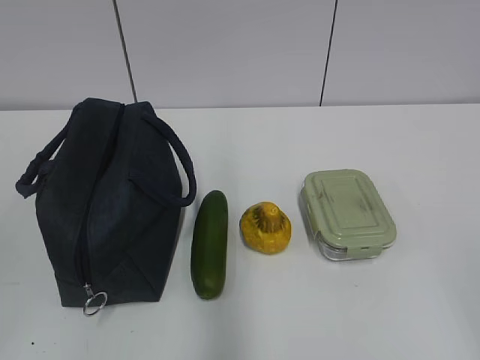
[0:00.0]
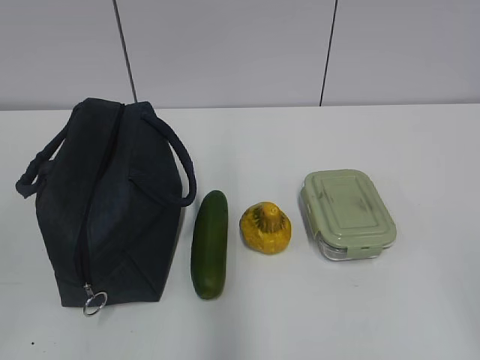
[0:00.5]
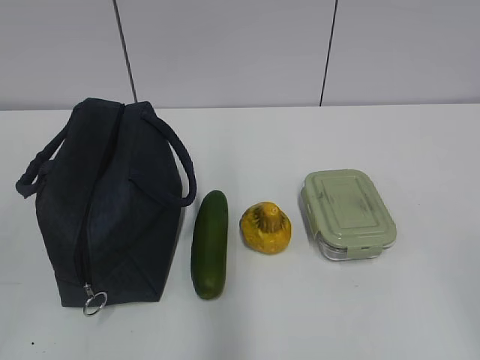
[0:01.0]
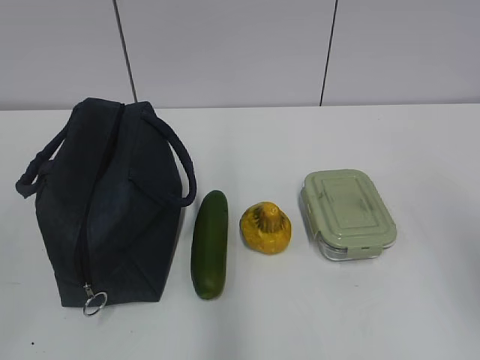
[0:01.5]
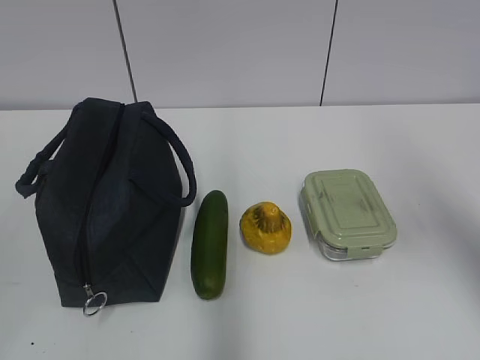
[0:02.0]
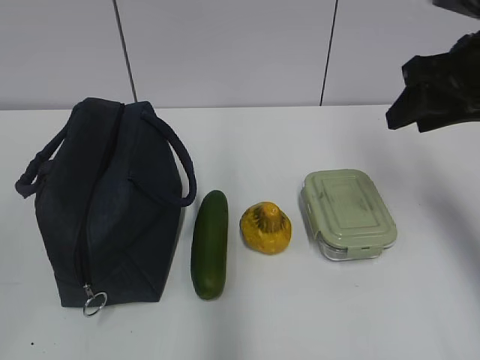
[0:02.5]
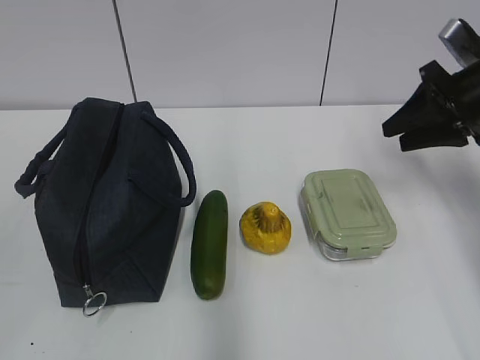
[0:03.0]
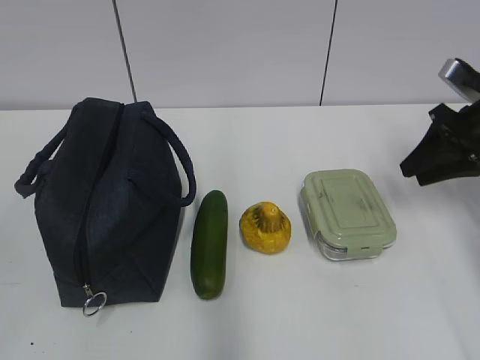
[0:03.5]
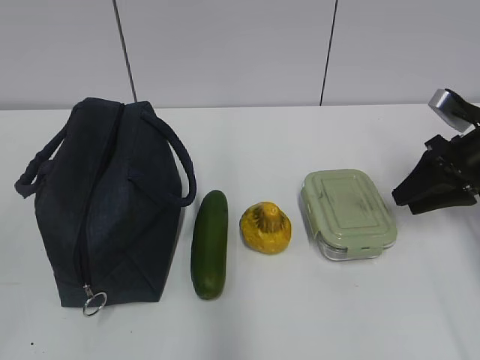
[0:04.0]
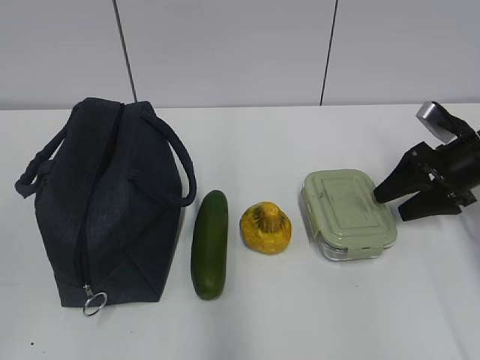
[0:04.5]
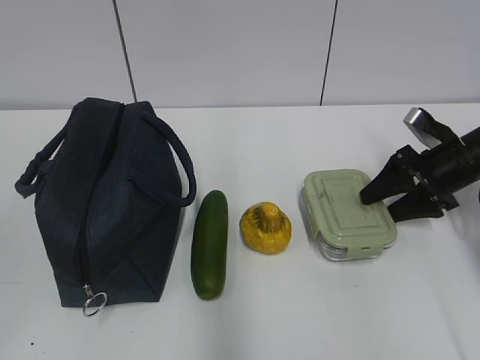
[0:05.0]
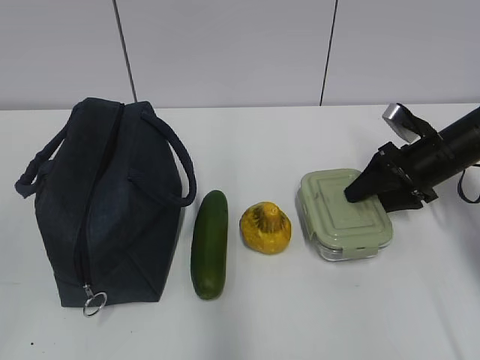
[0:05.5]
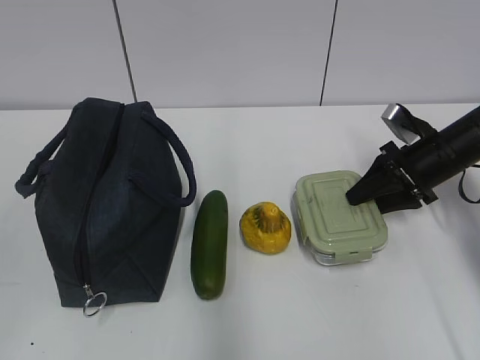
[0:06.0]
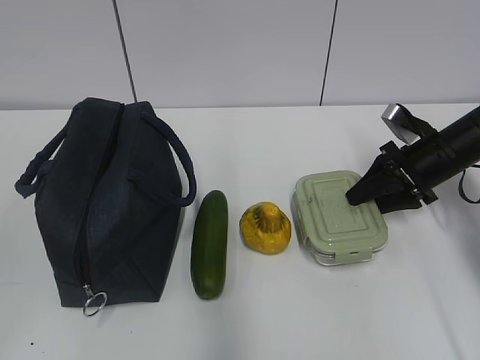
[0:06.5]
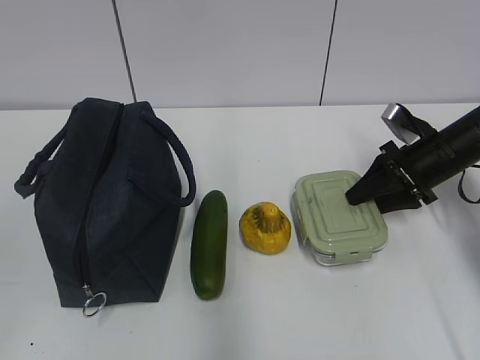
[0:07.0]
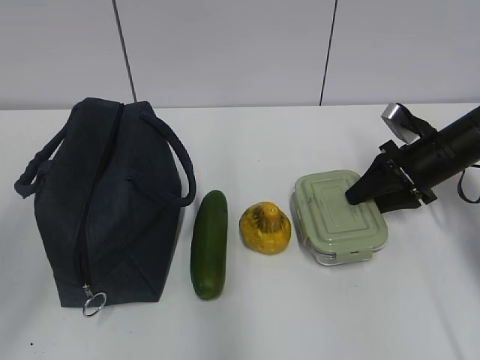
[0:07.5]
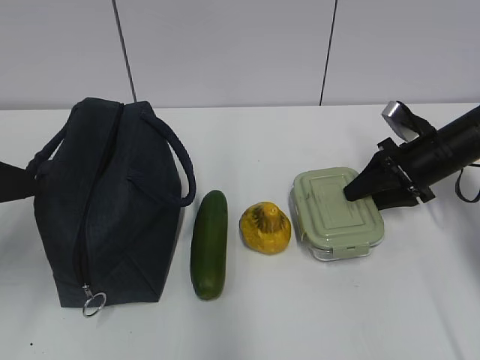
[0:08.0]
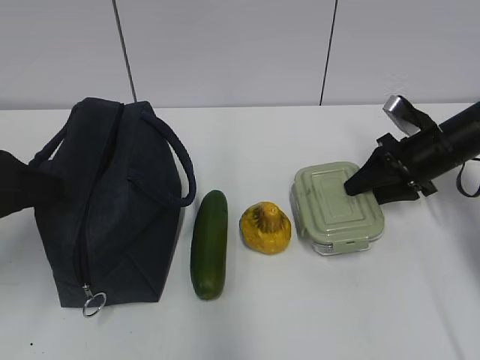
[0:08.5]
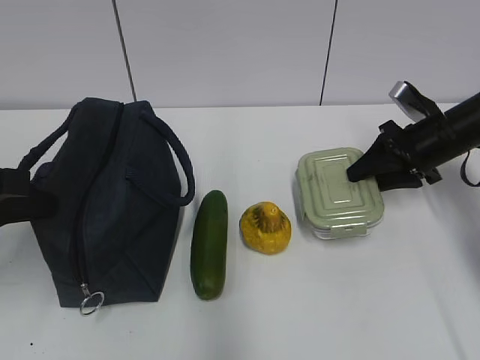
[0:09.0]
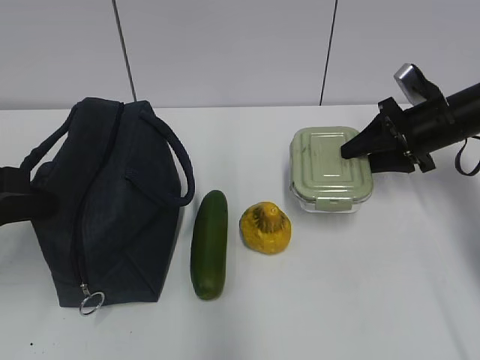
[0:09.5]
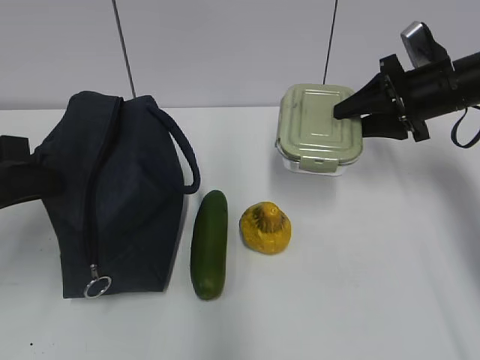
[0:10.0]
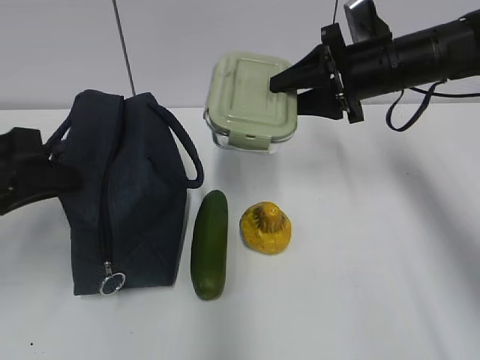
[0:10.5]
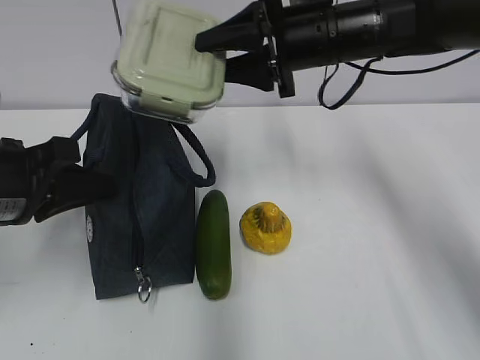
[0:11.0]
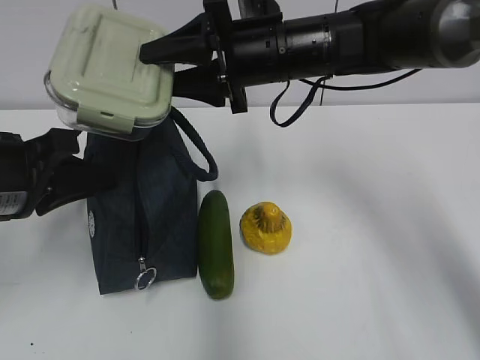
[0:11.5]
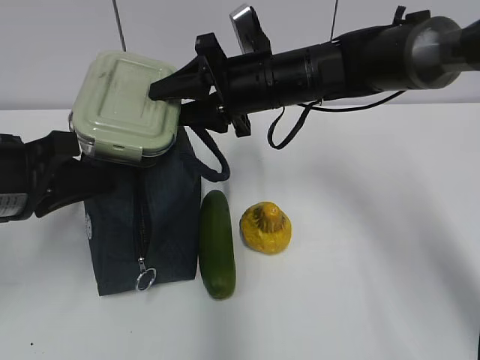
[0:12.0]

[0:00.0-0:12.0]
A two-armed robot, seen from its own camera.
Step, 0:00.0 to 0:06.0: Grab the lunch box with your right hand.
Step, 0:06.5 to 0:11.5: Grab the lunch bag with your left hand.
0:02.0 to 0:04.0: The right gripper moves downward and forward, roughly 25 cm.
0:04.0 to 0:06.0: The right gripper shifts by some 5 cm, and opens and closes again.
0:06.0 to 0:08.0: The left gripper moves forward, approximately 20 cm, and opens its fingers.
0:08.0 to 0:10.0: The right gripper goes approximately 10 cm upward; the left gripper closes.
0:10.0 to 0:12.0: The right gripper travels to the left by about 20 cm.

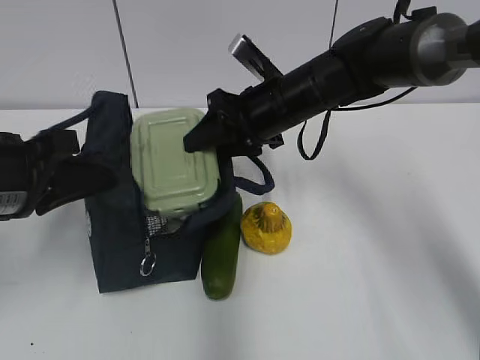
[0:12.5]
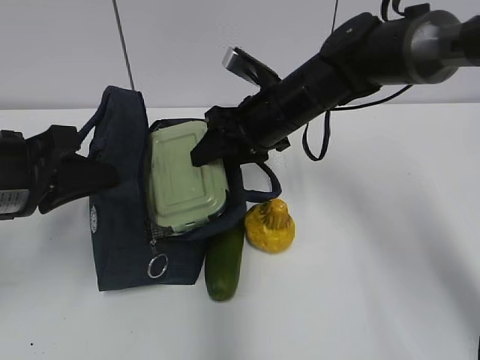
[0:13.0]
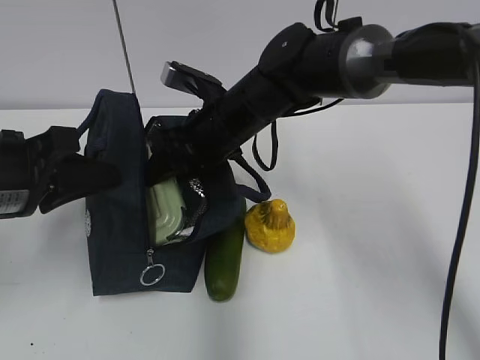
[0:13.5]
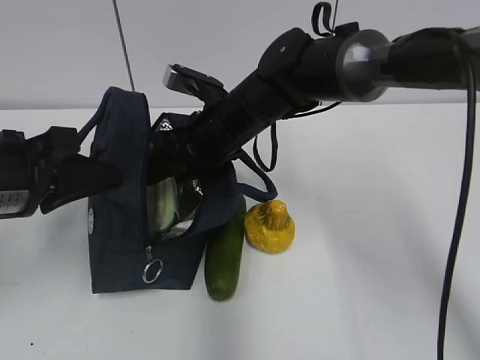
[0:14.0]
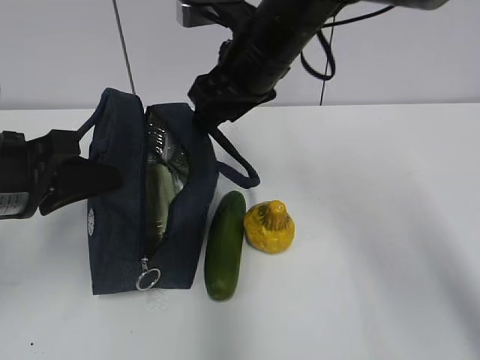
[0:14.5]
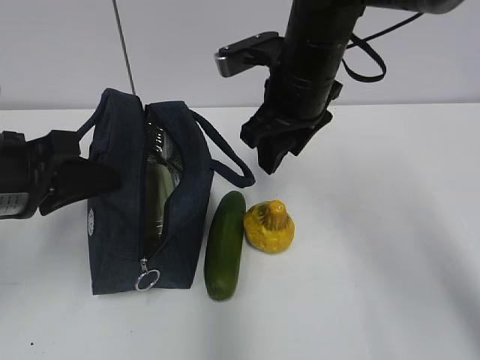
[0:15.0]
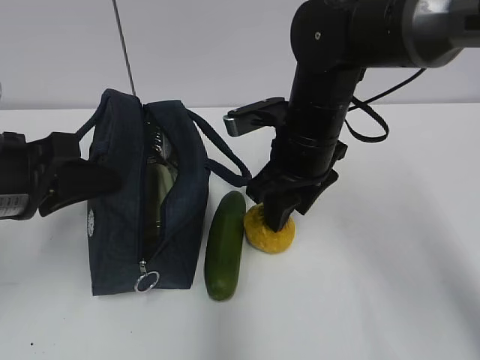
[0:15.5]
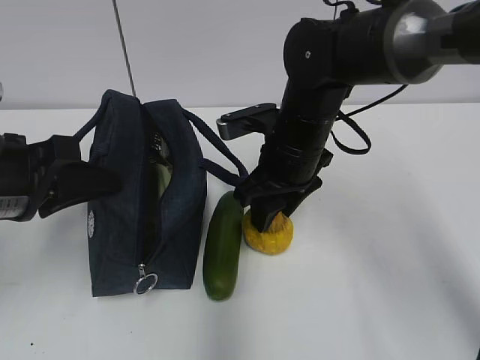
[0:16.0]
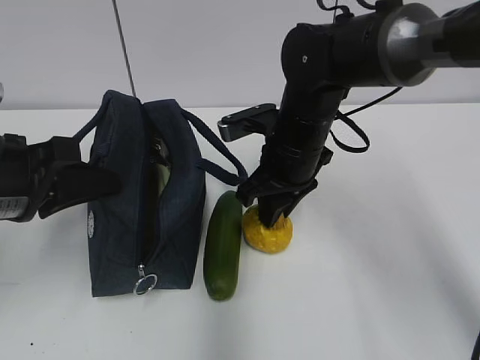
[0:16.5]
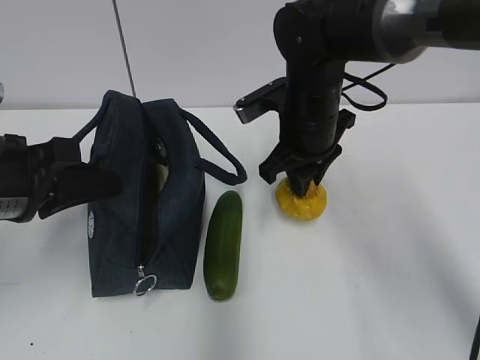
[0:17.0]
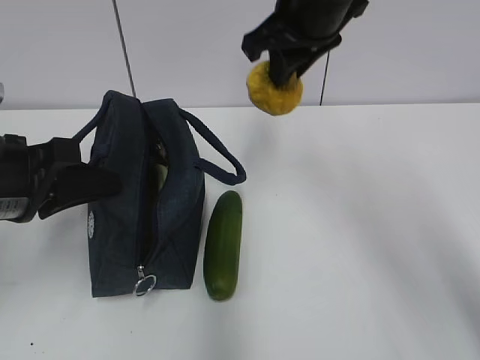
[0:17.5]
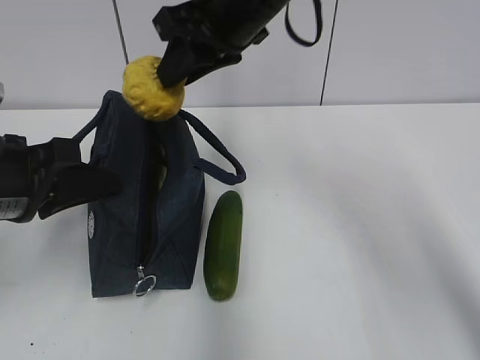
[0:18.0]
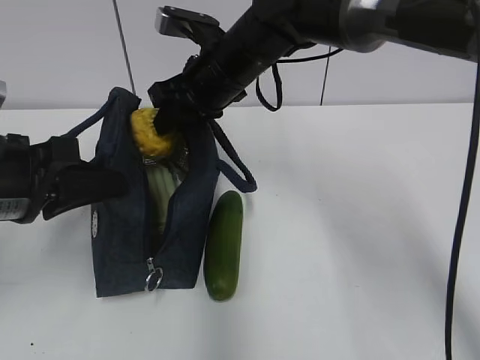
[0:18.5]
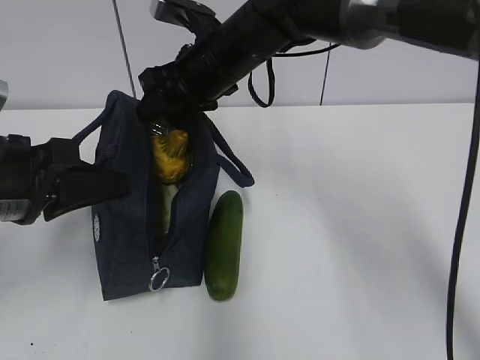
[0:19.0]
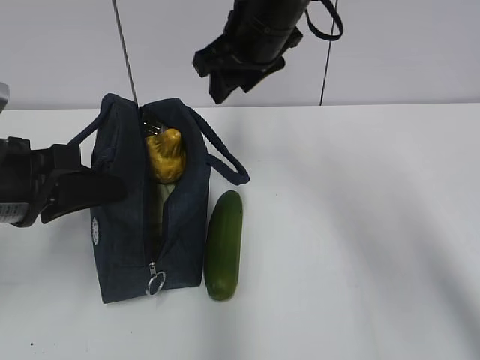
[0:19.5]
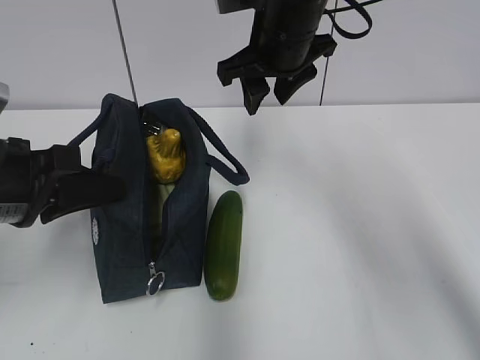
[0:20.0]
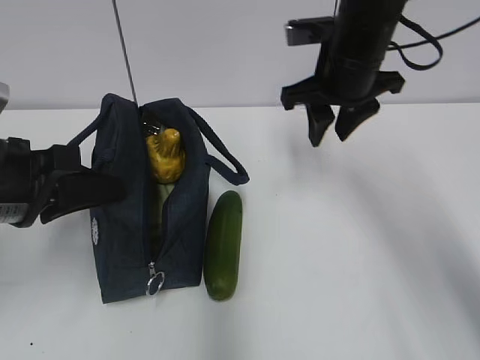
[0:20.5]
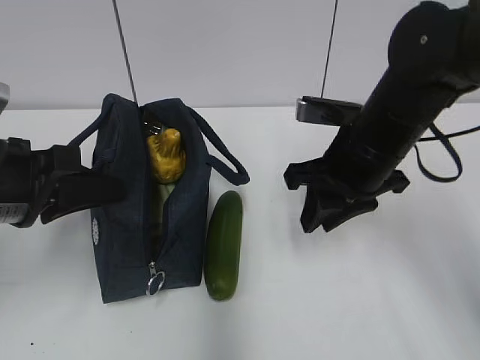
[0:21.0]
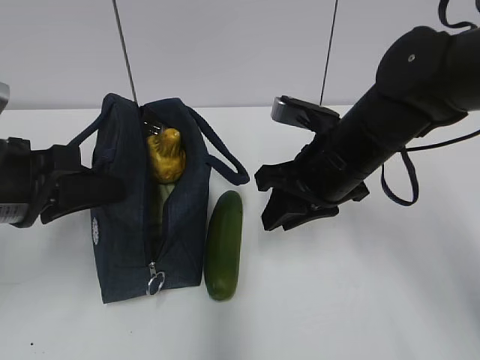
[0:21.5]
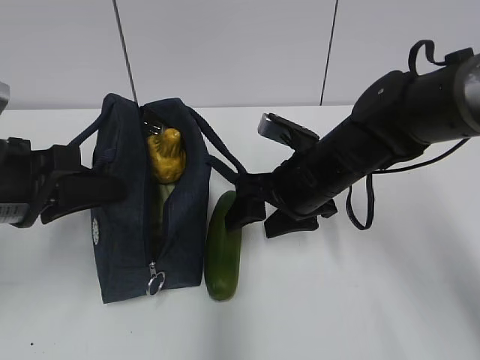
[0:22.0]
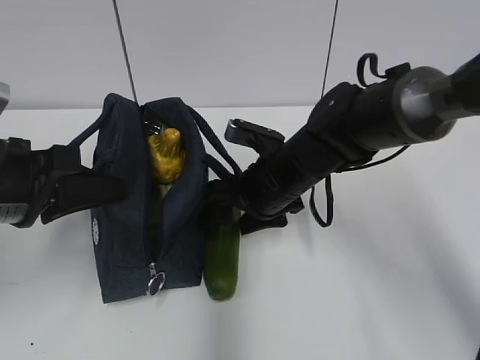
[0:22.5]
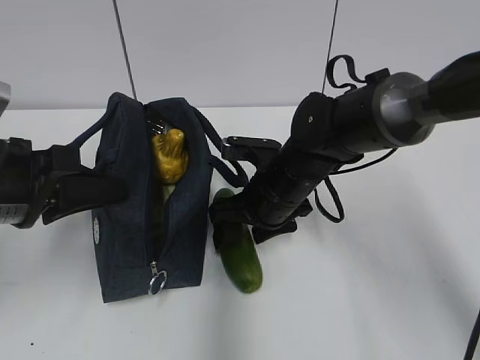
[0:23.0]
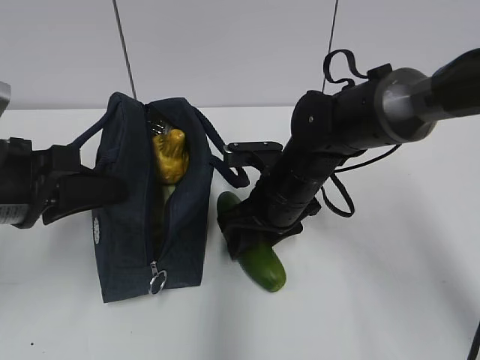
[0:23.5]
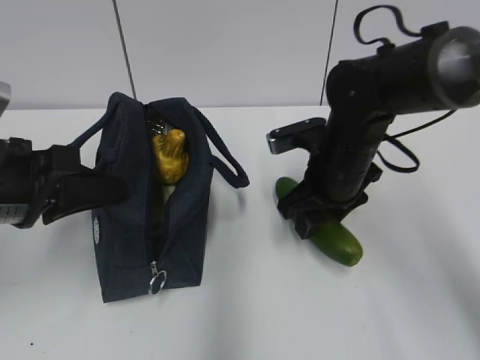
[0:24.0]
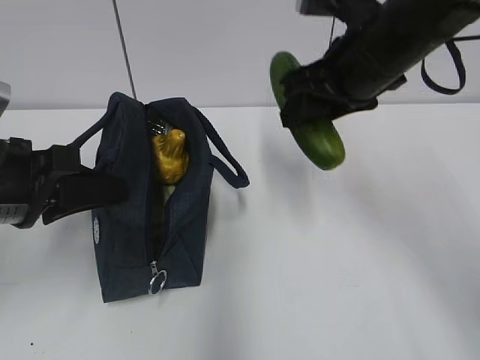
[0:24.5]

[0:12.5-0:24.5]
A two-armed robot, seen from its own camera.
Step, 0:12.5 to 0:14.0: Place it into the bag with your right hand.
Step, 0:14.5 to 0:16.0: Grab the pear with your right hand.
Step, 0:16.5 to 0:19.0: Place it into the bag with your right hand.
Step, 0:19.5 to 0:23.0: Grab the cucumber with your right hand.
0:12.5 to 0:14.5: The right gripper shifts some 10 cm upward.
0:14.5 to 0:16.5: The right gripper is displaced downward by approximately 10 cm, and closes.
0:16.5 to 0:18.5: The right gripper travels upward, to the left and forward by about 10 cm.
0:18.5 to 0:20.5: The right gripper goes about 15 cm to the right.
0:20.5 to 0:22.5: The right gripper heads downward and to the left, covering approximately 15 cm, and opens up.
0:22.5 to 0:24.5: The right gripper heads upward and to the right, covering approximately 15 cm.

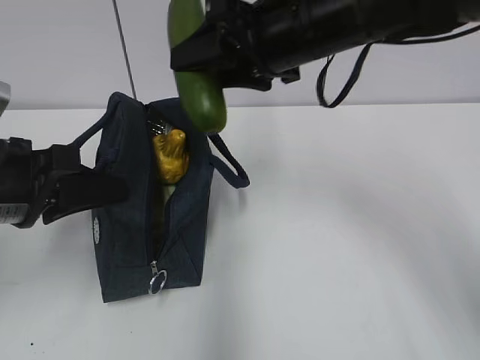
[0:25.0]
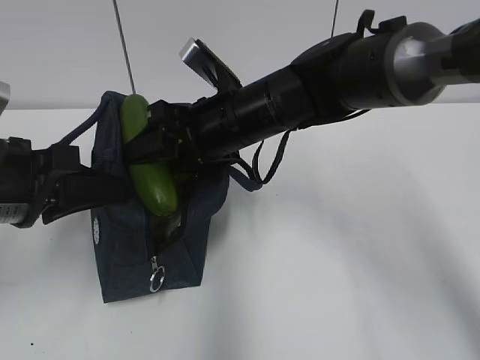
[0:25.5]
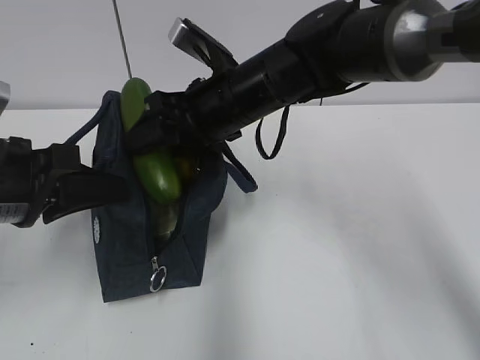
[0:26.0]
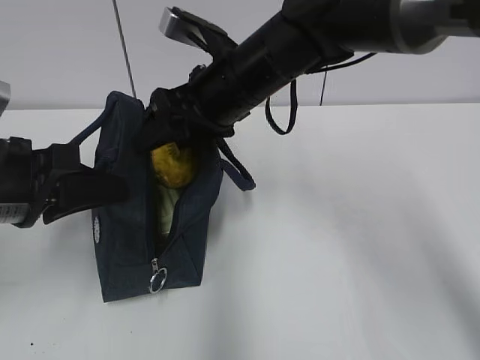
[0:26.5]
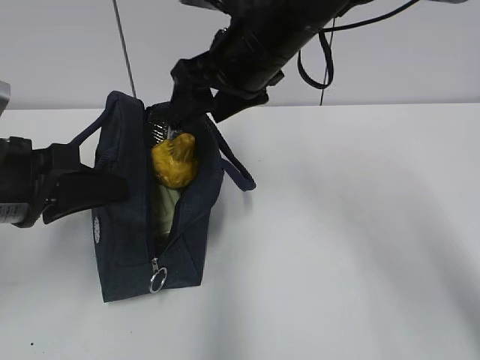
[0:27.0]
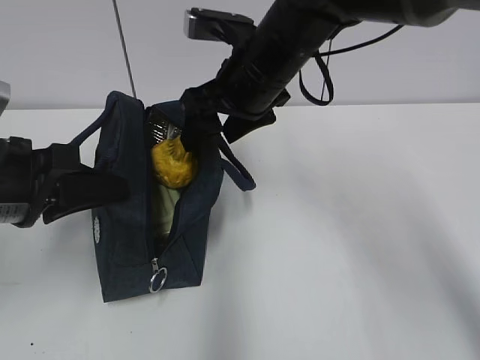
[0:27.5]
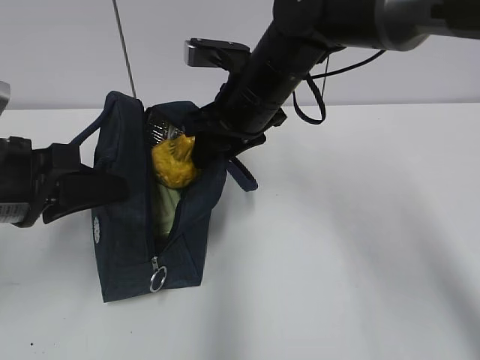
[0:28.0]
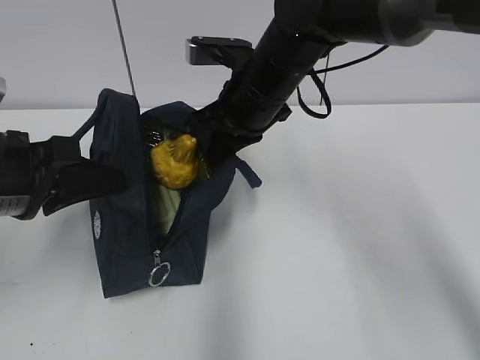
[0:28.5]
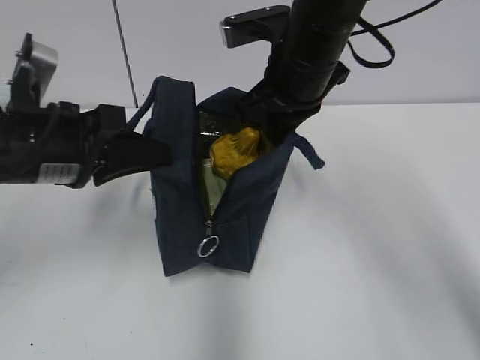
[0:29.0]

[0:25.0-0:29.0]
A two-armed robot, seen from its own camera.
Step, 0:26.5 to 0:28.0: Grab the lunch bag with your right hand.
0:25.0 to 0:27.0: The right gripper moves about 10 cm downward and comes back.
0:27.0 to 0:29.0: The right gripper closes up.
